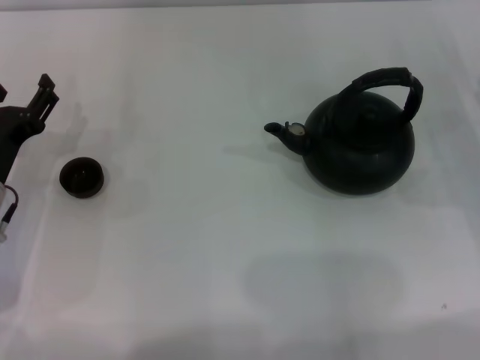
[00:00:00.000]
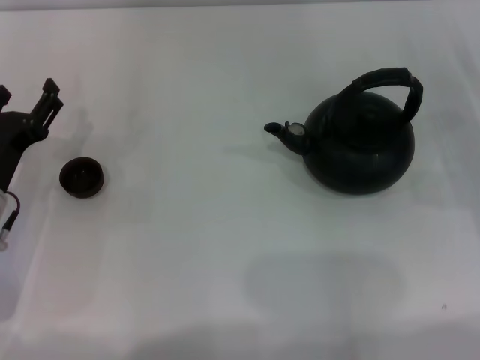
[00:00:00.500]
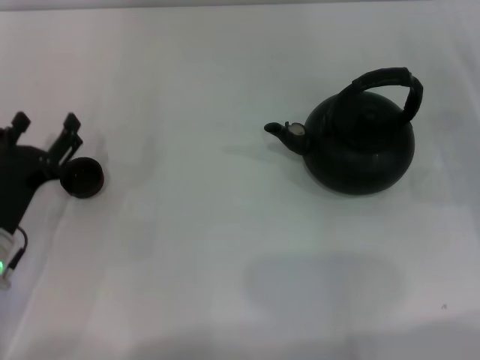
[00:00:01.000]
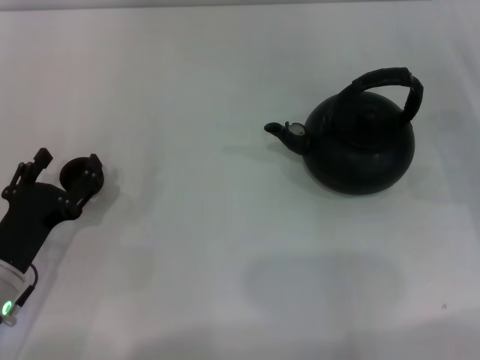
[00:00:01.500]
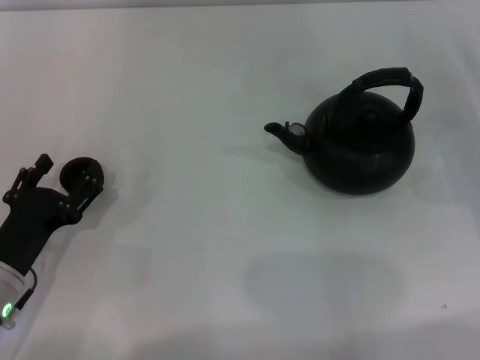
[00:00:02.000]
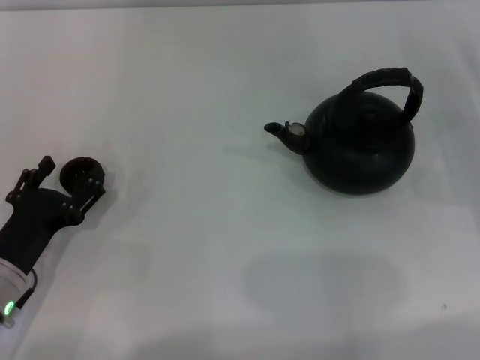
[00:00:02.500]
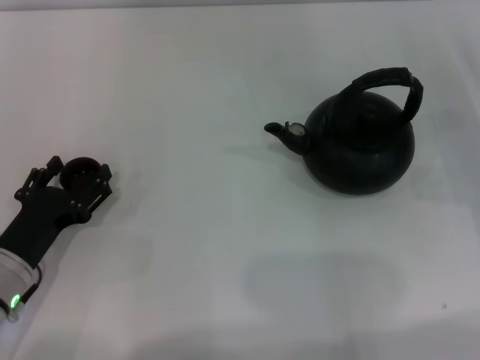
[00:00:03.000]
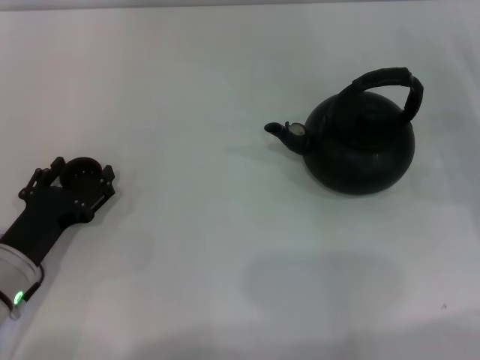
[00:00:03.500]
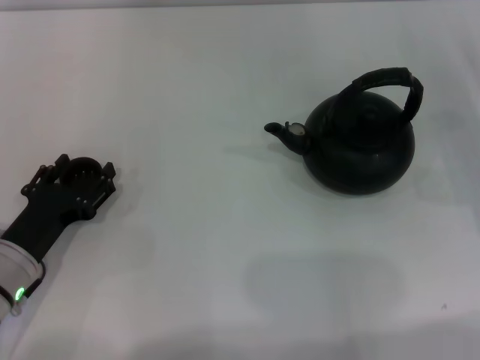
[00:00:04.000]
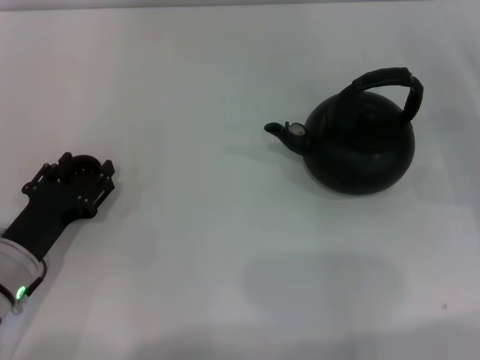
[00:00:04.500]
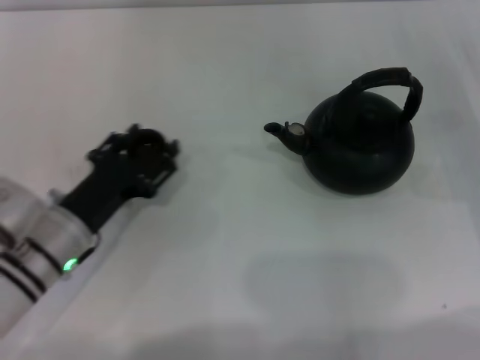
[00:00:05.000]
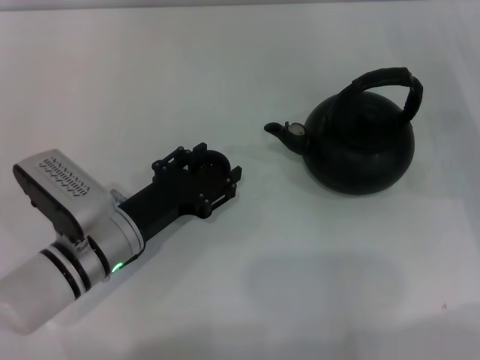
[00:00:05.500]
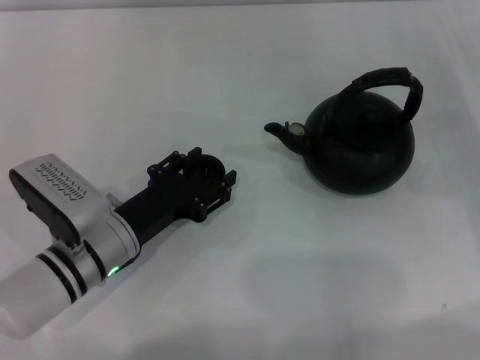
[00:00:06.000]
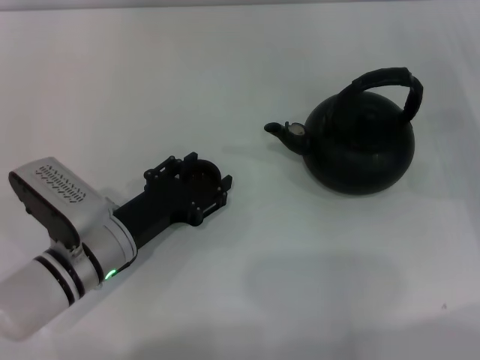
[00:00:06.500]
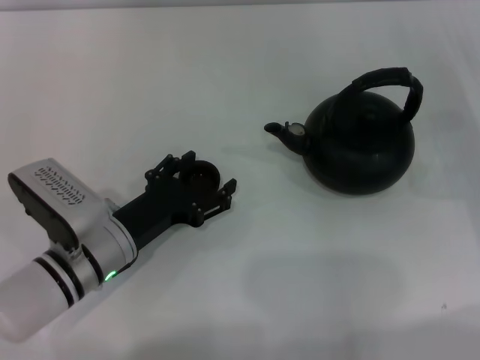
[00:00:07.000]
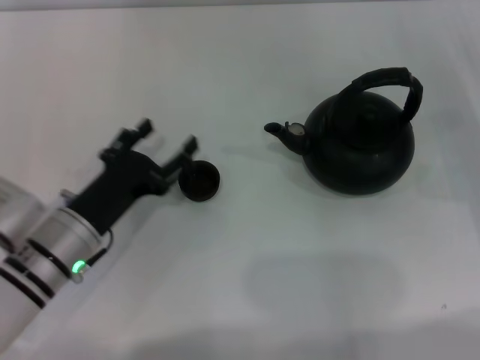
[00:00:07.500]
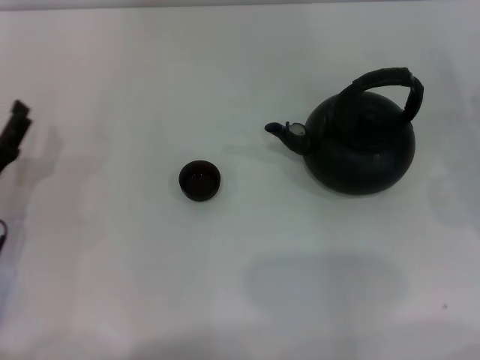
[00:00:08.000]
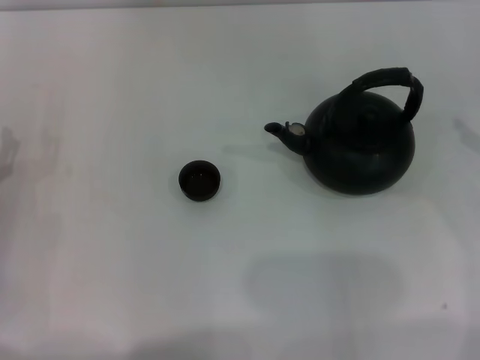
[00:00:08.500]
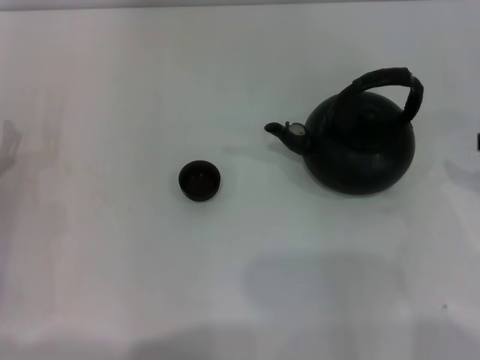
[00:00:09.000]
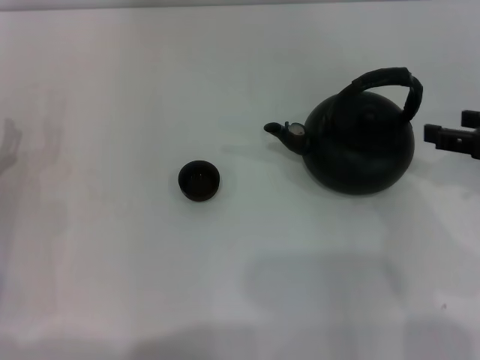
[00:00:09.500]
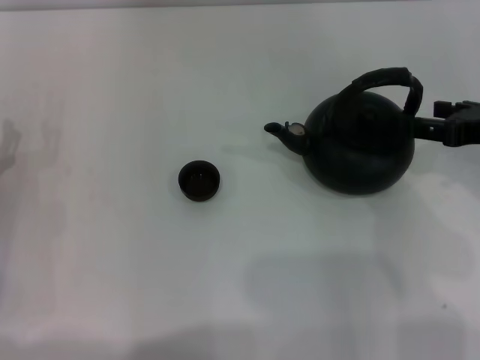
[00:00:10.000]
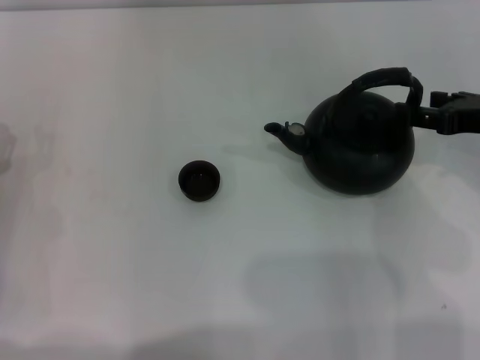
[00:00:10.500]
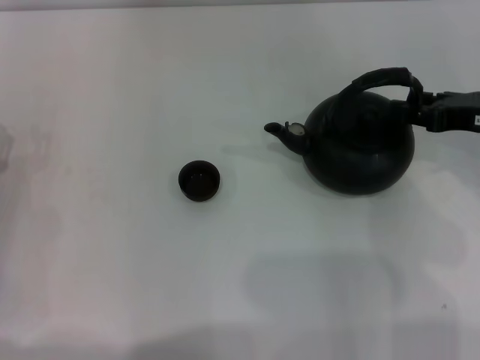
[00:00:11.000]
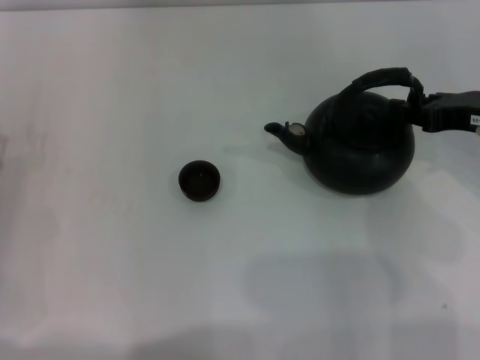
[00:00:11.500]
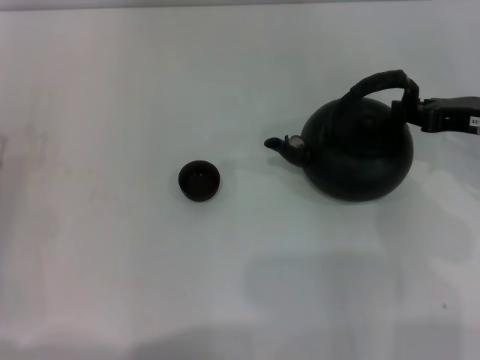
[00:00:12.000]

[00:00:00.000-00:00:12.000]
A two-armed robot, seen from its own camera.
Task of the whole recording: Grasp the handle of the teapot with one hand and pour tea into the teacup.
Step, 00:00:00.000 to 00:00:04.500: Pick up the teacup with the left gripper.
Step, 00:00:05.000 to 00:00:07.000: Place the teacup in the center of view with the left gripper.
00:00:00.000 to 00:00:02.000: The left gripper goes roughly 10 cm backward.
00:00:02.000 to 00:00:04.000: The grippers make only small movements.
00:00:04.000 to 00:00:06.000: The left gripper heads to the right, covering about 10 cm, and closes its fingers.
00:00:06.000 to 00:00:08.000: The left gripper is displaced to the left by roughly 10 cm, and opens its fingers.
00:00:08.000 to 00:00:10.000: The right gripper is displaced upward and to the left by approximately 10 cm.
00:00:10.000 to 00:00:12.000: The right gripper closes up.

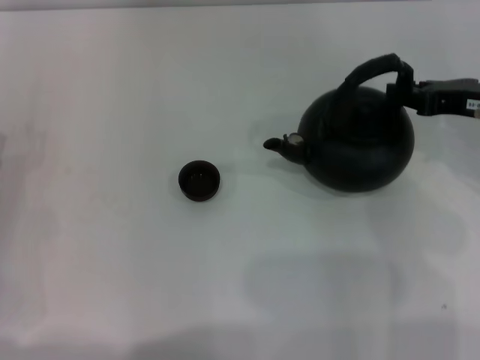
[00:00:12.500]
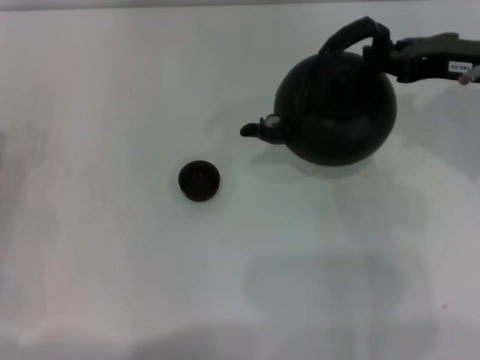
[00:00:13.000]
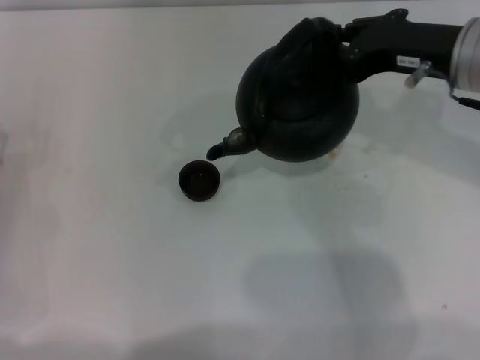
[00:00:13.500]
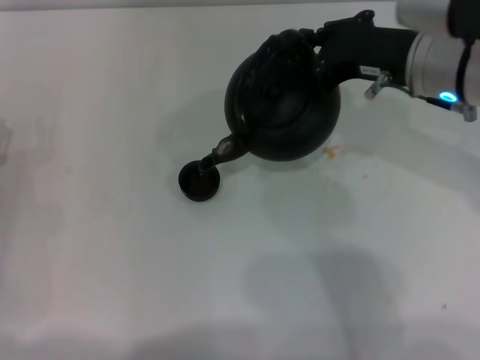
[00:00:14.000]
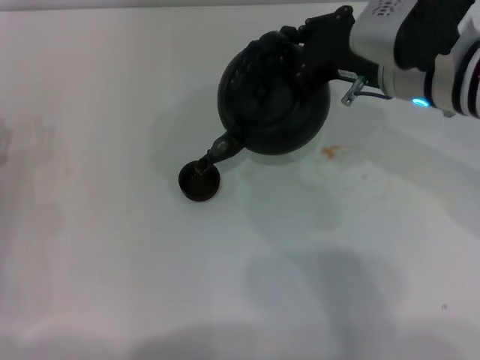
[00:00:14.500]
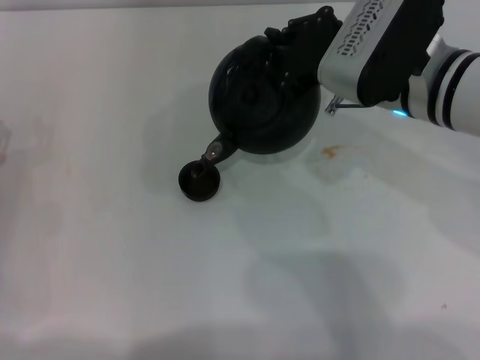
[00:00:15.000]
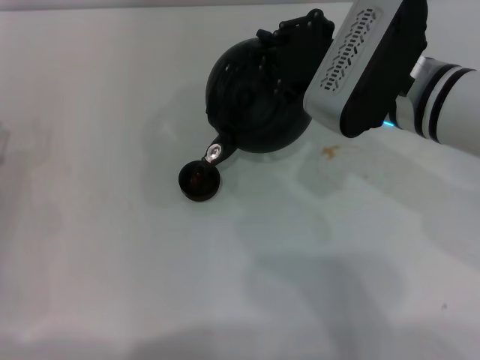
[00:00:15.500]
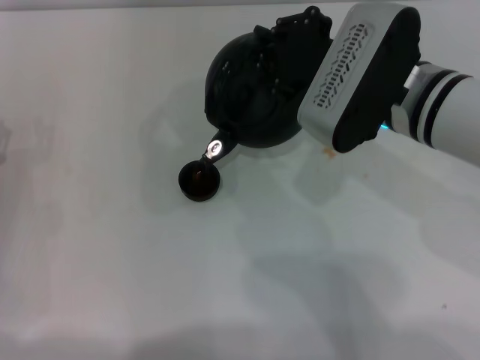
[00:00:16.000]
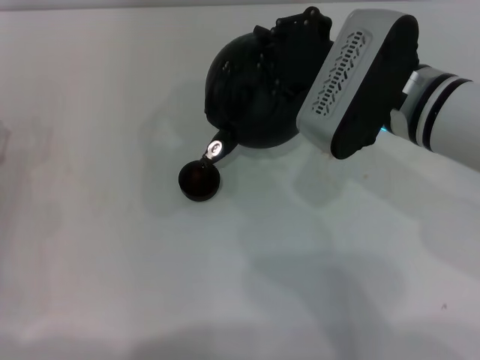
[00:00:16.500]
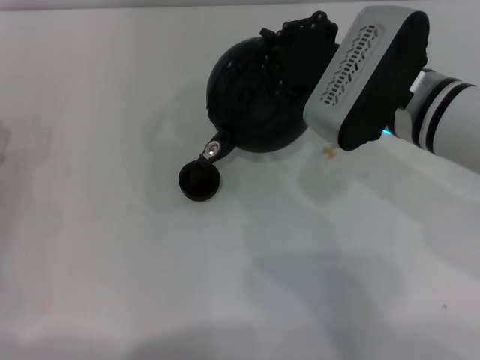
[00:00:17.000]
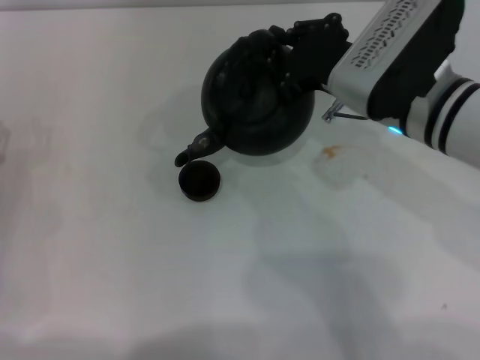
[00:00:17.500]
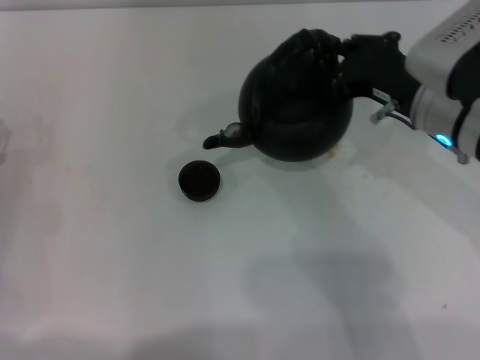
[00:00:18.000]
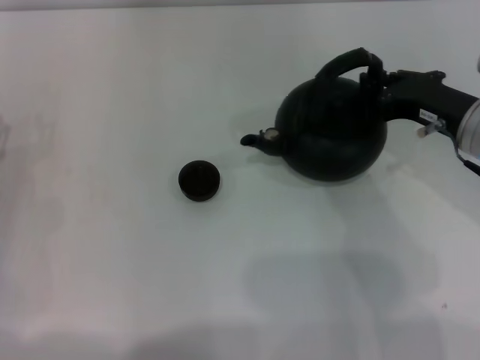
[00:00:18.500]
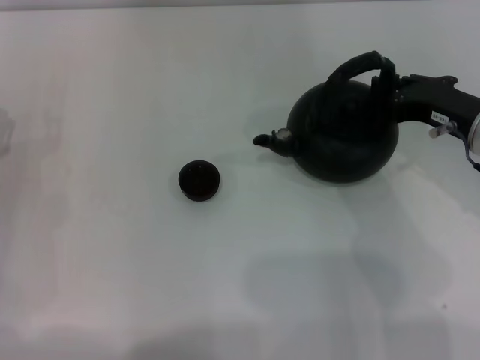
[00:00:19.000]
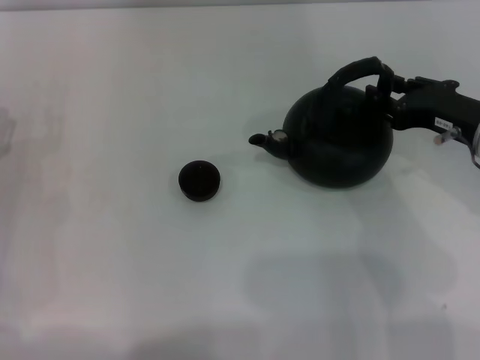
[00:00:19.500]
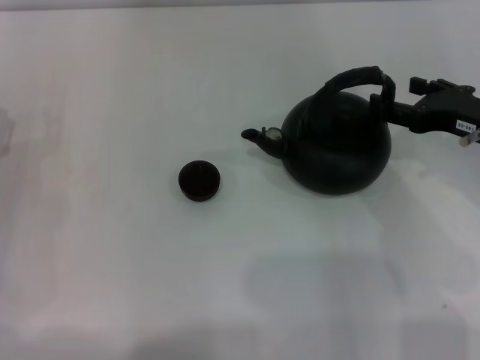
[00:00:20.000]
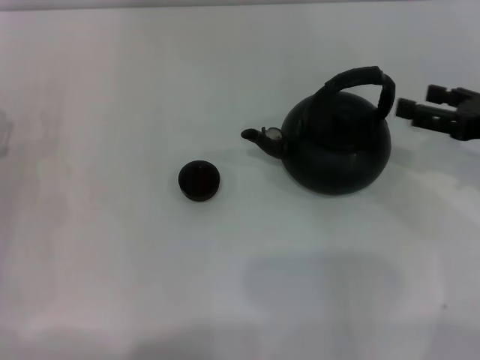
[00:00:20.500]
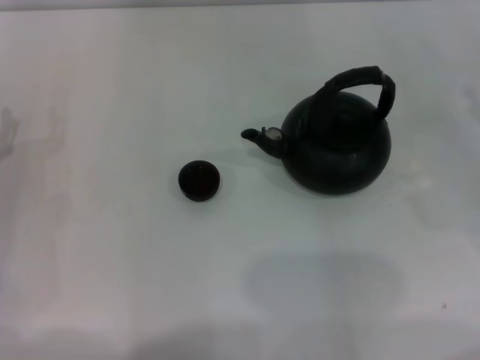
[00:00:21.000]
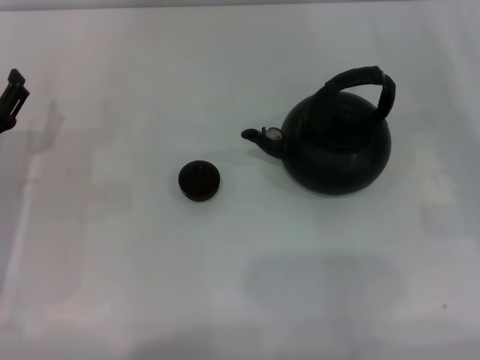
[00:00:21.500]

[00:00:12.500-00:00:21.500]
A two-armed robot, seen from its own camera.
Task of the whole recording: Grasp the handle of the teapot with one hand and pour tea into the teacup.
Step, 00:00:13.000 to 00:00:17.500: Pour tea into the teacup with the right gripper.
Step, 00:00:18.000 to 00:00:20.000: Put down the teapot with the right gripper.
00:00:12.500 to 00:00:14.500: The right gripper heads to the left, covering about 15 cm.
00:00:17.000 to 00:00:19.500: The right gripper travels to the right by some 10 cm.
00:00:19.500 to 00:00:21.500: The right gripper moves to the right, about 10 cm, and opens.
